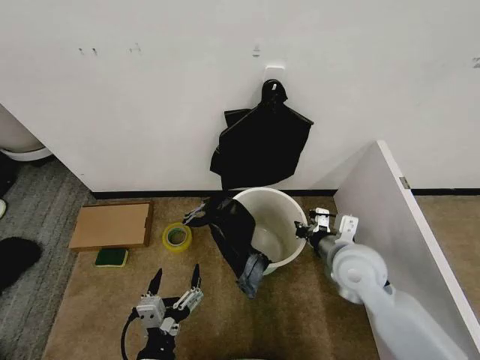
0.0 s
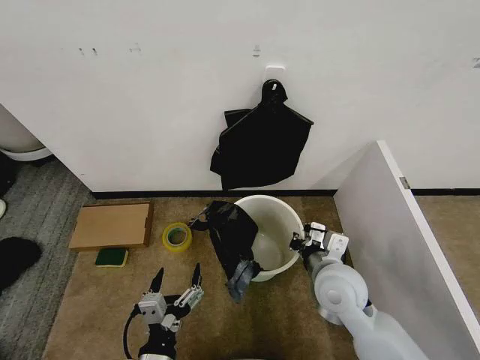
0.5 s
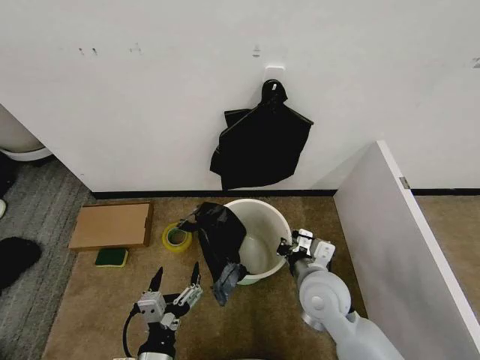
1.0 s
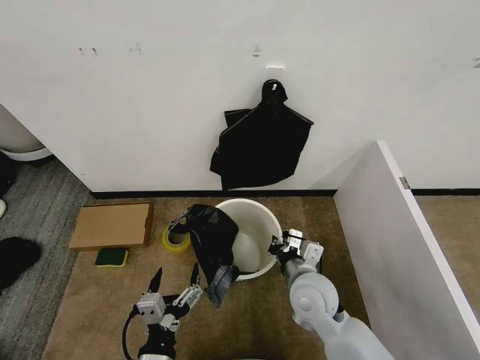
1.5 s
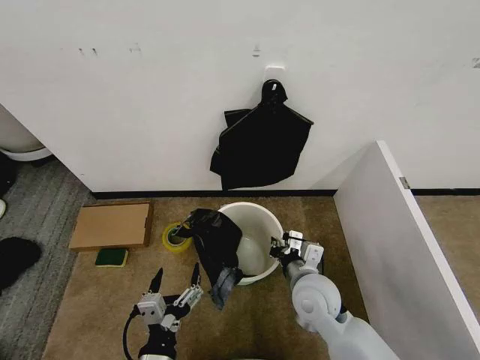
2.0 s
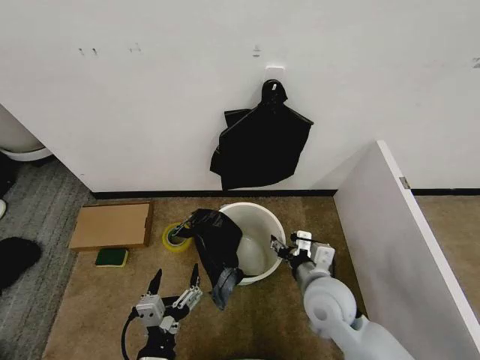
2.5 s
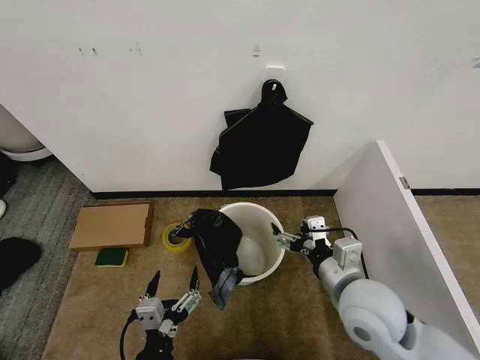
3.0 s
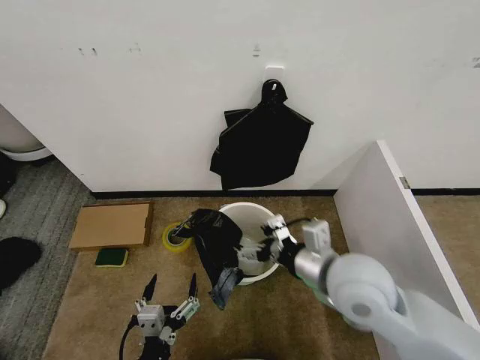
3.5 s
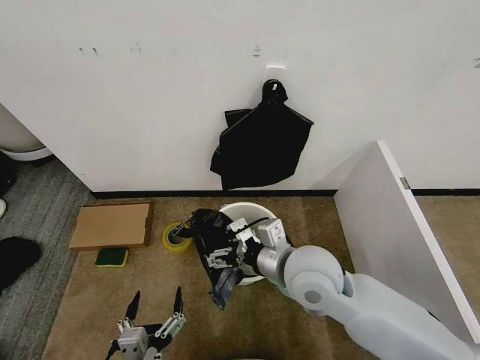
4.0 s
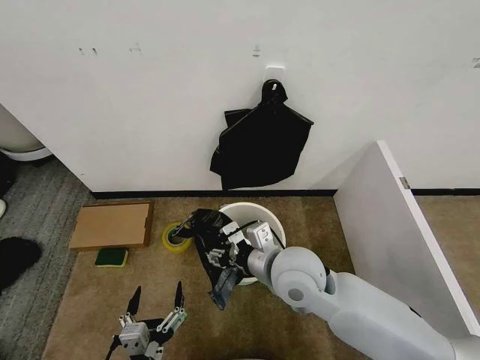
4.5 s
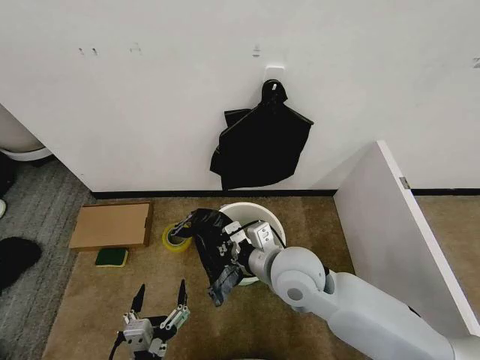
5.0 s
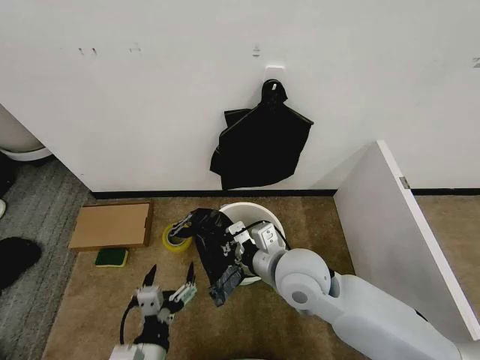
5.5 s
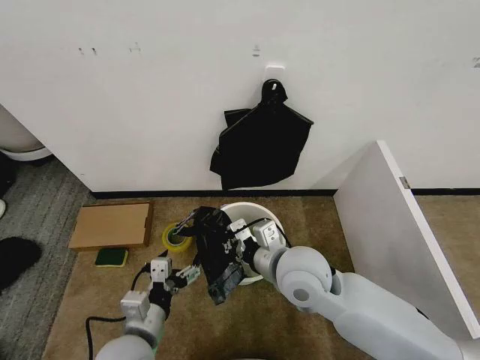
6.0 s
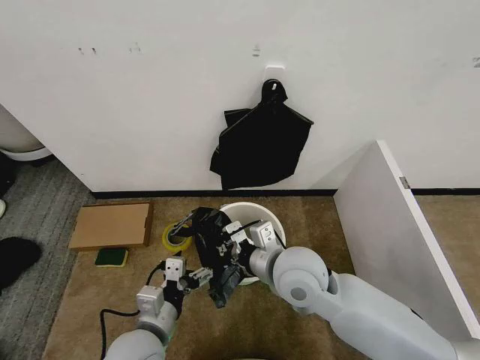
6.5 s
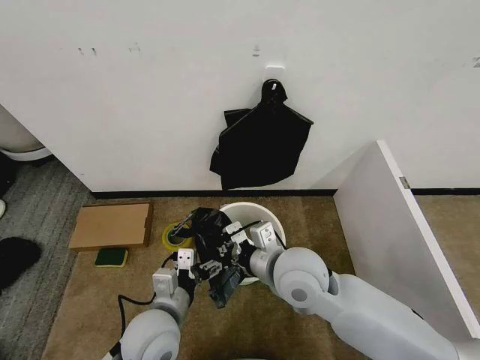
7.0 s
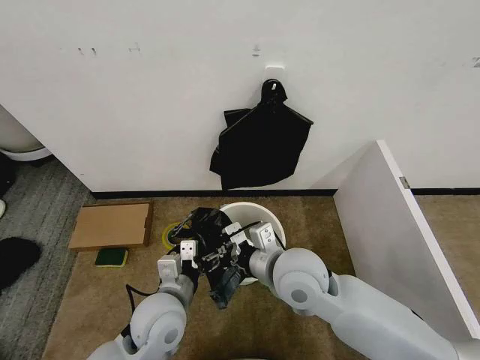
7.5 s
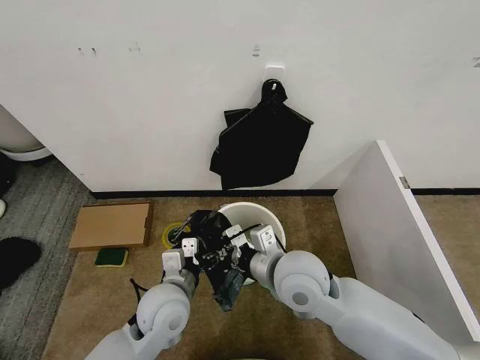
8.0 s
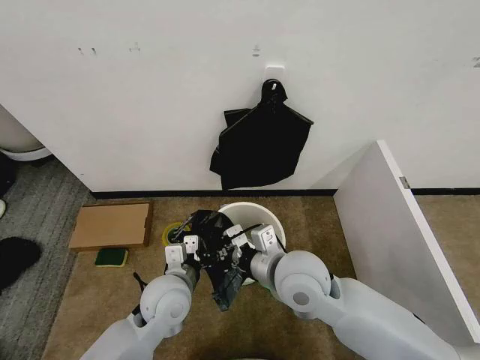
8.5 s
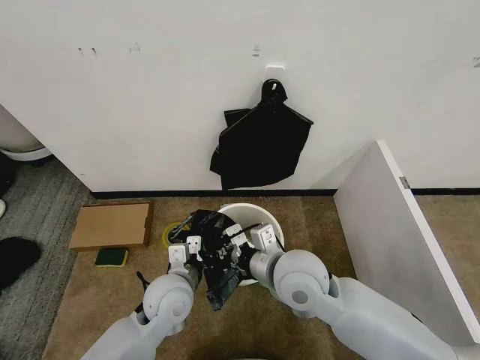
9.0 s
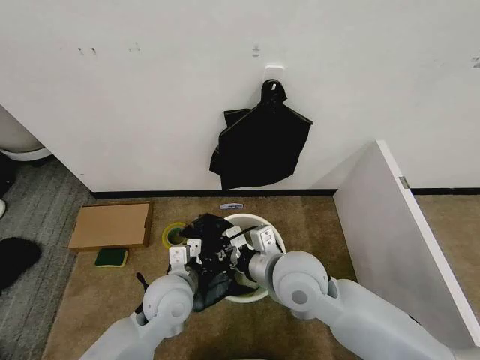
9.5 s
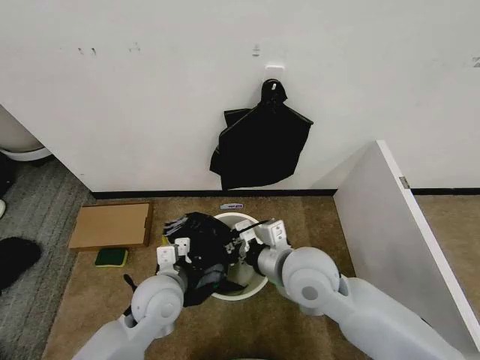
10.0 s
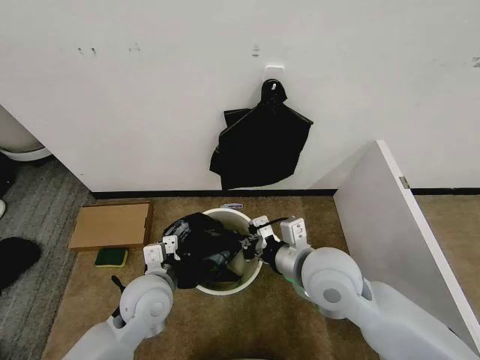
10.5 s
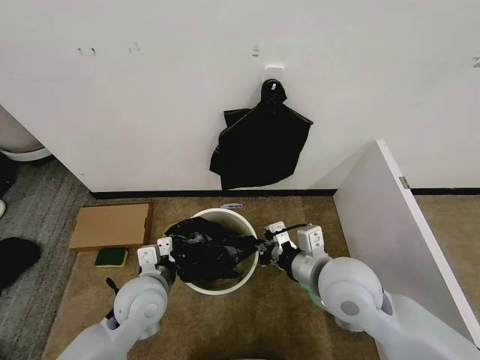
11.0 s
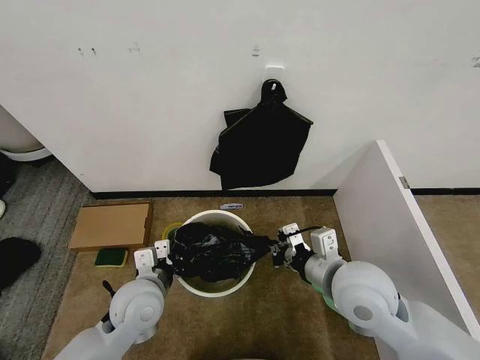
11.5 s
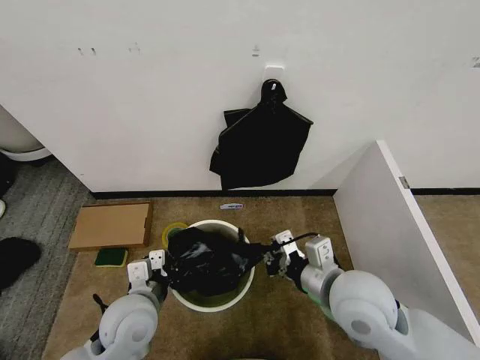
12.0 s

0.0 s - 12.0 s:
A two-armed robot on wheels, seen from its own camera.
Task of the whole recording: Place the garbage bag over the trash bin.
0.0 s - 2.0 s: The right gripper goes roughly 10 cm to the left and downward.
2.0 s - 4.0 s: The right gripper goes roughly 10 cm upward, and opens its fingers. Meanwhile the left gripper moves about 5 cm.
4.0 s - 6.0 s: The right gripper closes up, while the left gripper is displaced forward and upward by about 15 cm.
6.0 s - 8.0 s: The left gripper goes approximately 10 cm forward and to the right.
8.0 s - 10.0 s: The left gripper closes its fingers.
10.0 s - 12.0 s: The left gripper shifts by some 5 cm. Meanwhile the right gripper heads to the right, covering approximately 5 cm.

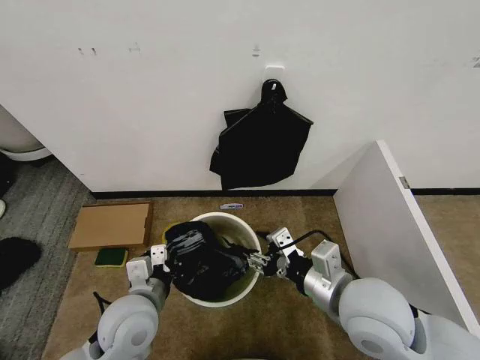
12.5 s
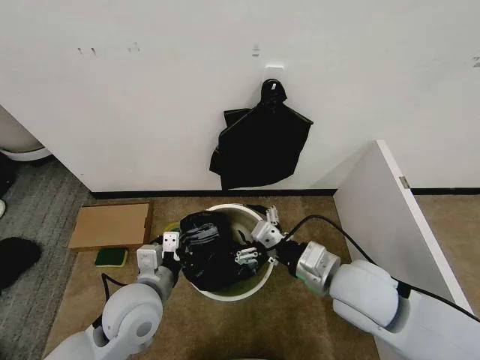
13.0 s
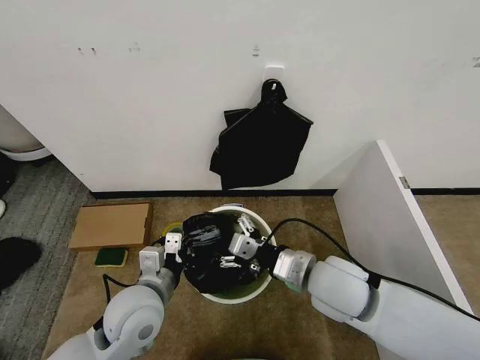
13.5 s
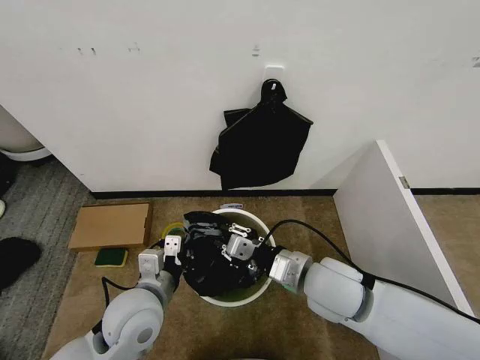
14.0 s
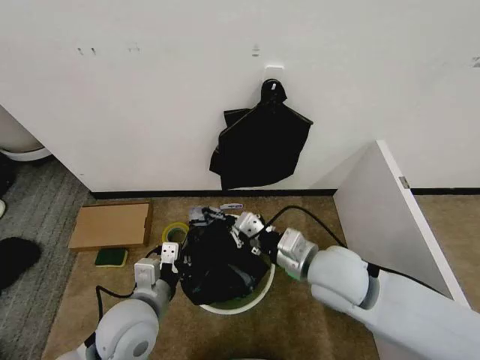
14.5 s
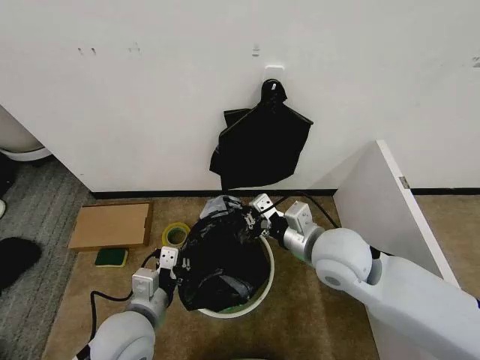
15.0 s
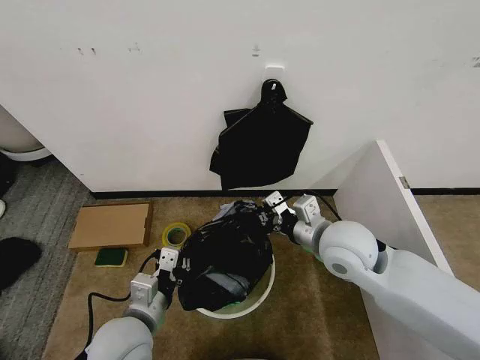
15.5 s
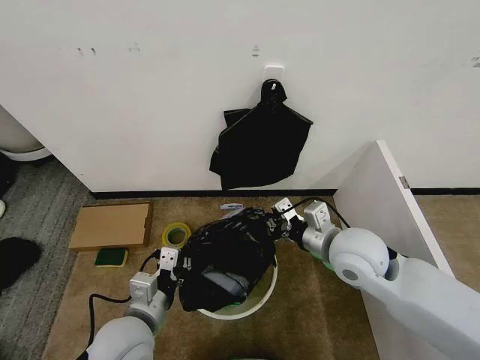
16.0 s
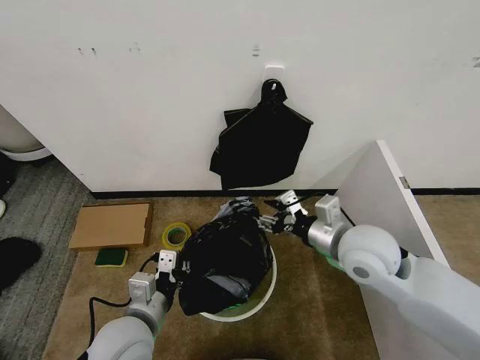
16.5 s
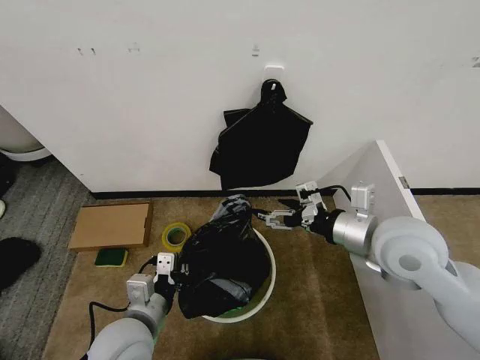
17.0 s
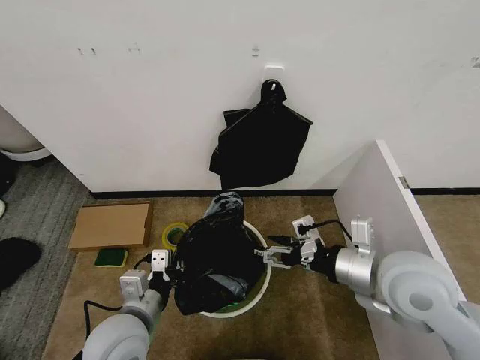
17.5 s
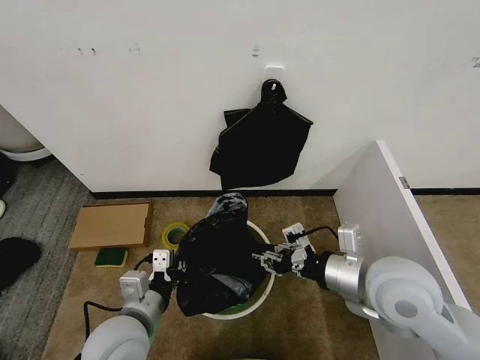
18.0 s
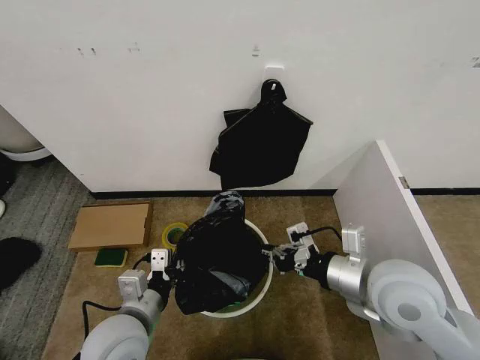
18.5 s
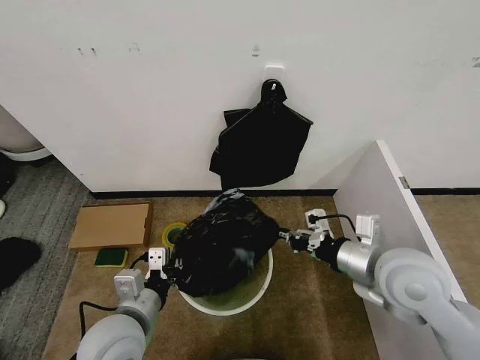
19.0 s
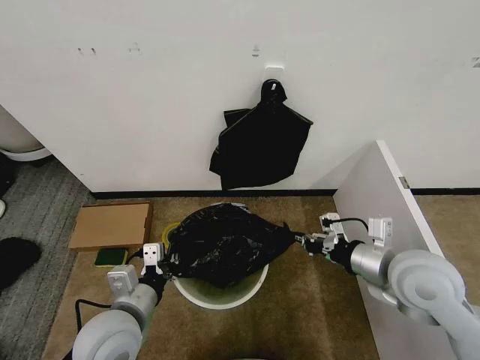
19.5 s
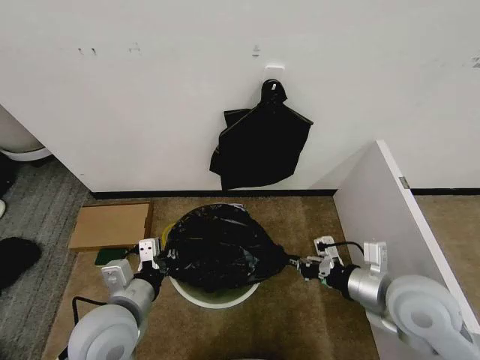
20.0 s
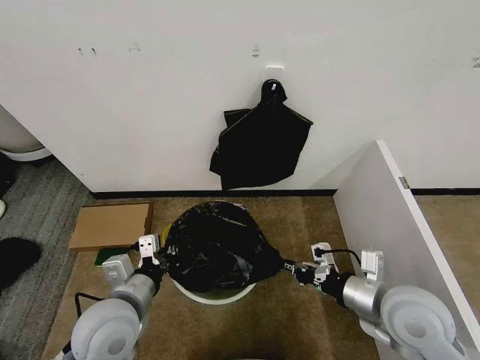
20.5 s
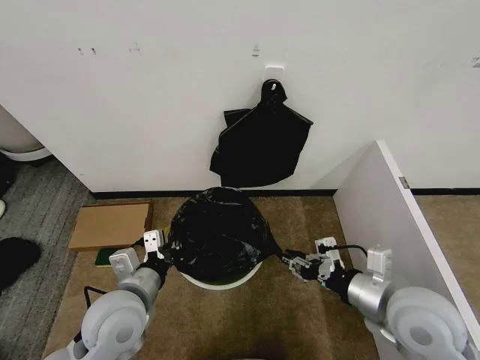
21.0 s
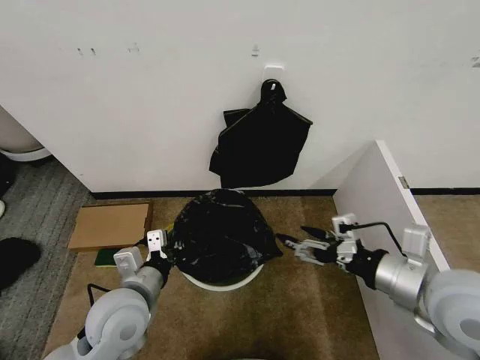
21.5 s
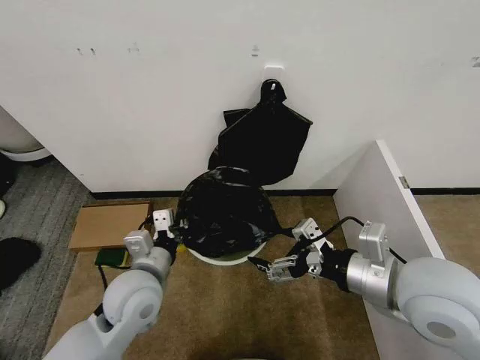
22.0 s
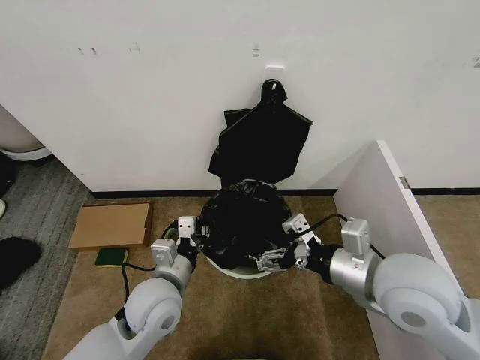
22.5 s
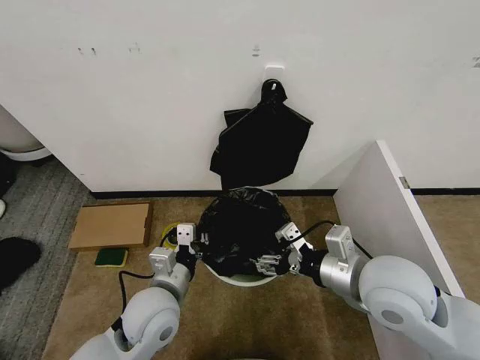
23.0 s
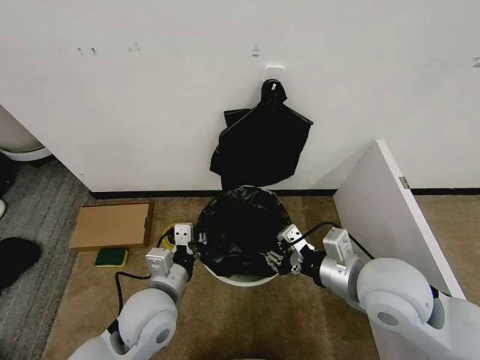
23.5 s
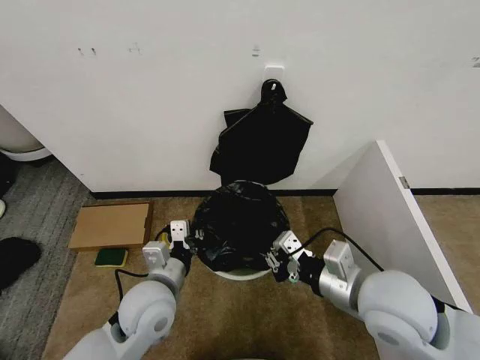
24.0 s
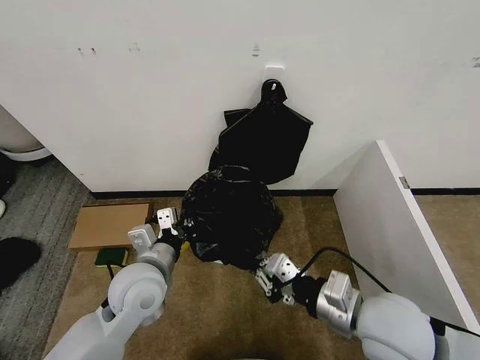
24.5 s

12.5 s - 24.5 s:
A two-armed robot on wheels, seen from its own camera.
Task of the whole recording: Place the garbage bag over the trash bin.
12.5 s - 14.5 s: The right gripper travels forward by about 5 cm, and closes its fingers.
14.5 s - 16.5 s: The right gripper travels to the right by about 5 cm, and opens.
16.5 s - 18.5 s: The right gripper travels backward by some 5 cm, and closes up.
18.5 s - 20.5 s: The right gripper heads downward, covering roughly 5 cm.
20.5 s - 22.5 s: The right gripper is displaced upward by about 10 cm, and opens. Meanwhile the left gripper travels to the right by about 5 cm.
22.5 s - 24.5 s: The right gripper shifts approximately 5 cm downward, and closes its fingers.

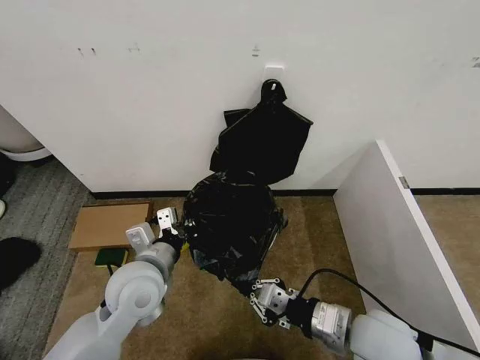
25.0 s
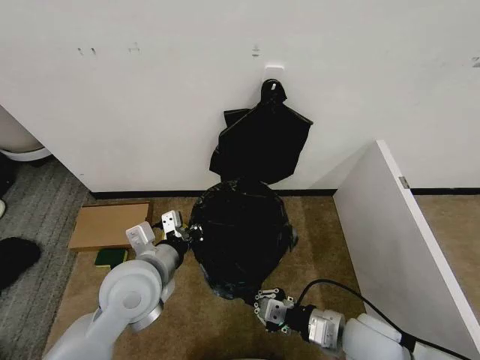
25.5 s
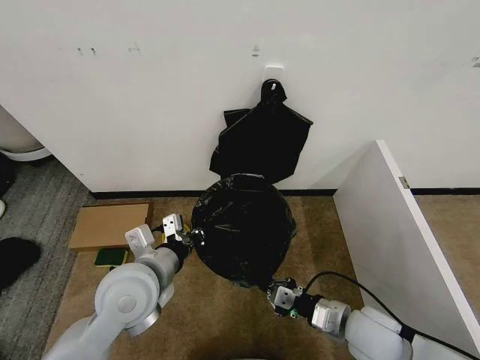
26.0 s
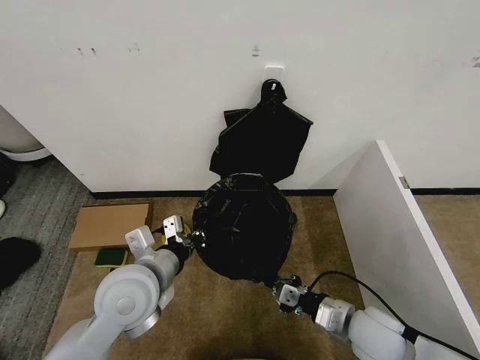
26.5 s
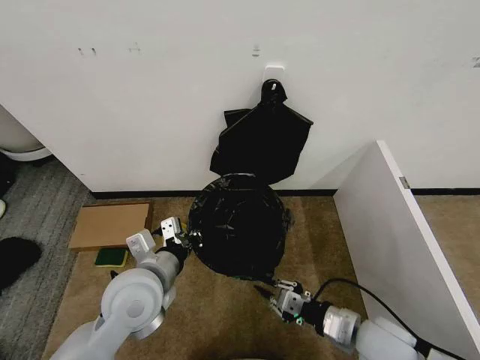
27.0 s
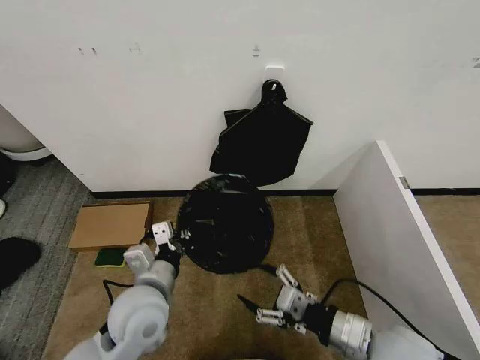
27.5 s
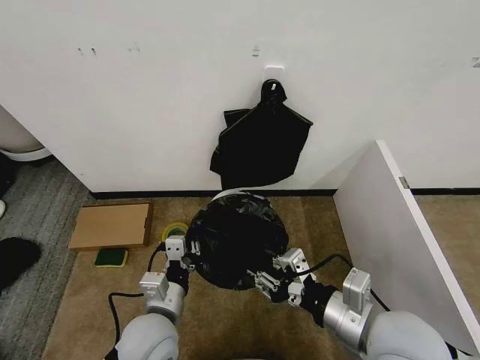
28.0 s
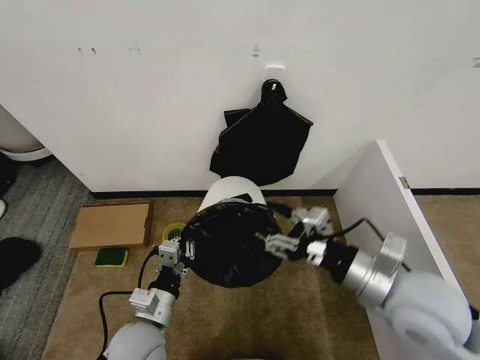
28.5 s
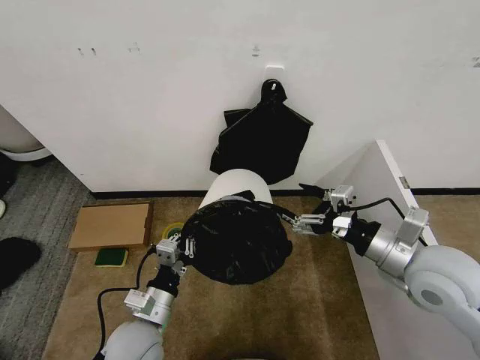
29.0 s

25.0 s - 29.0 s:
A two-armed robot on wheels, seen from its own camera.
Task of the whole recording: Place the garbage bag over the trash bin.
25.0 s - 27.0 s: The right gripper shifts some 5 cm downward.
27.0 s - 29.0 s: The left gripper travels downward by about 10 cm. The right gripper moves upward, roughly 15 cm, and opens its fingers.
